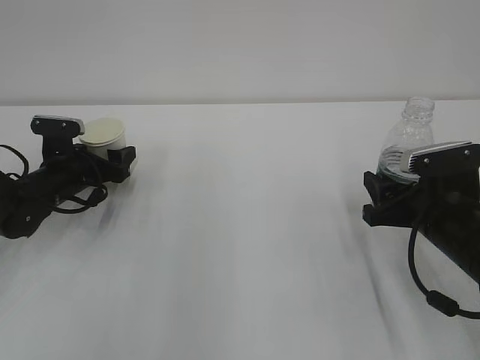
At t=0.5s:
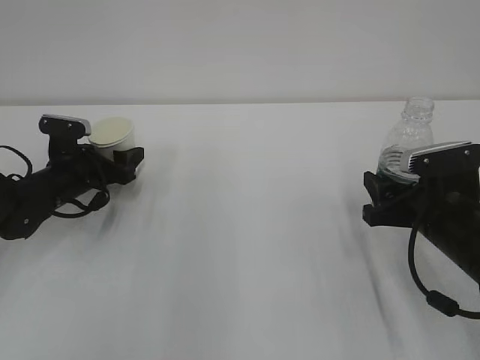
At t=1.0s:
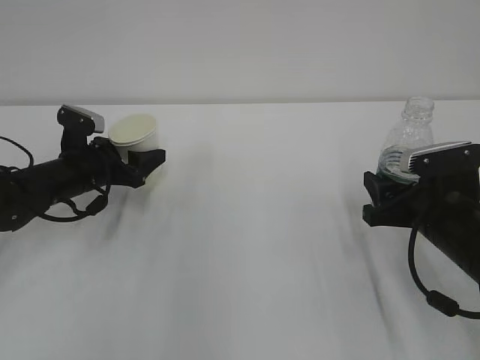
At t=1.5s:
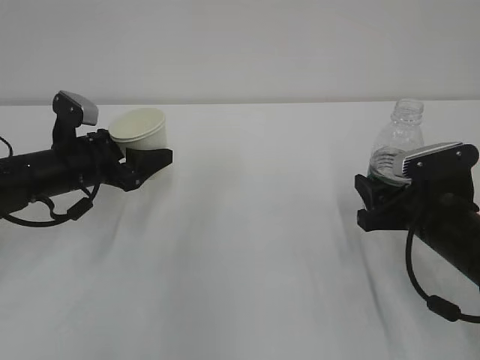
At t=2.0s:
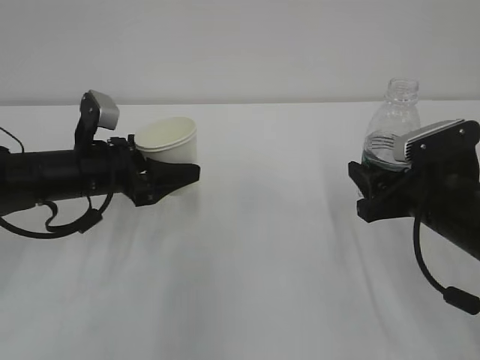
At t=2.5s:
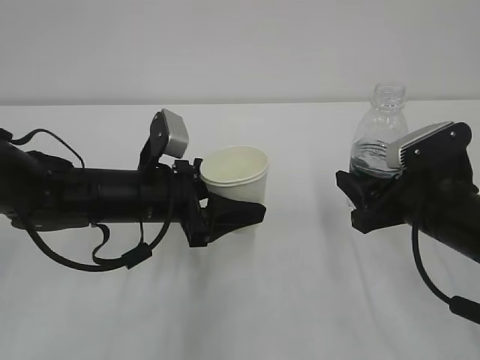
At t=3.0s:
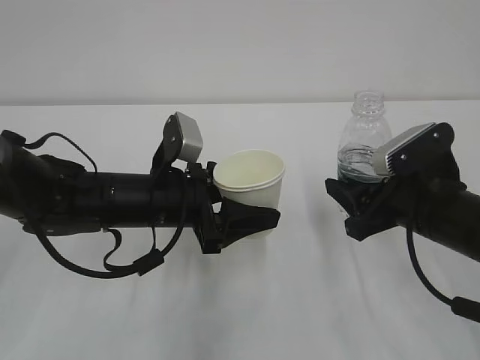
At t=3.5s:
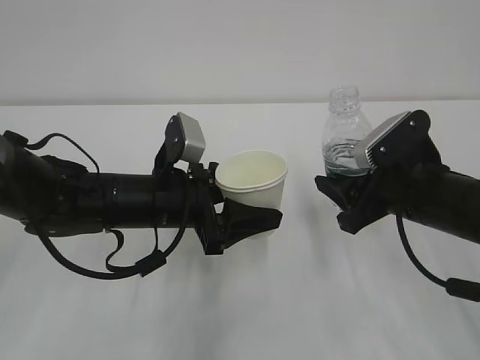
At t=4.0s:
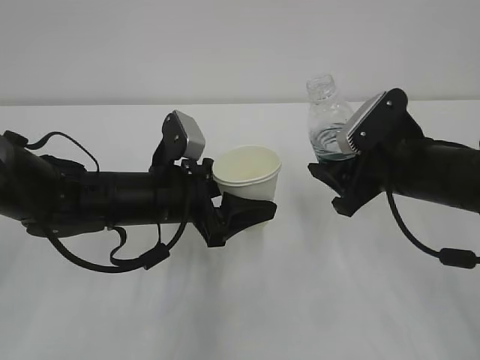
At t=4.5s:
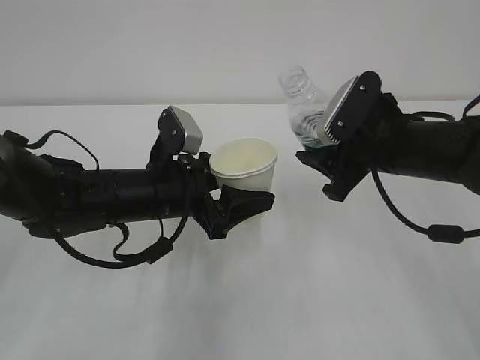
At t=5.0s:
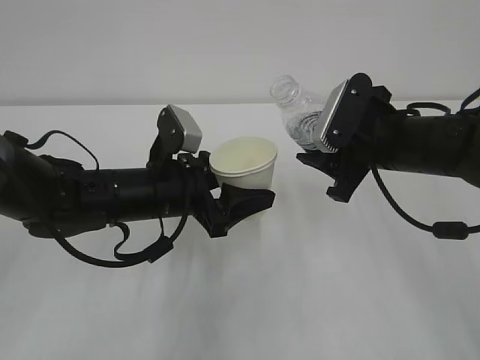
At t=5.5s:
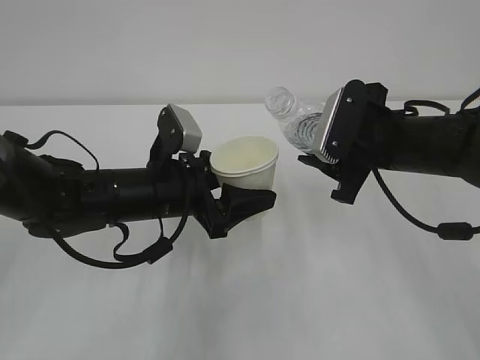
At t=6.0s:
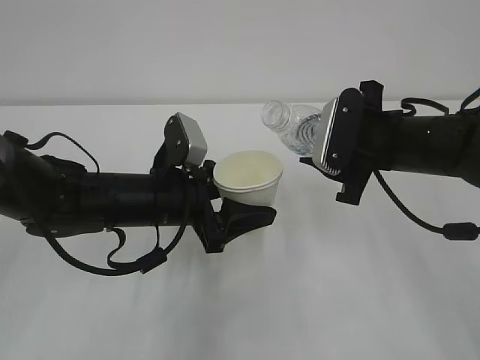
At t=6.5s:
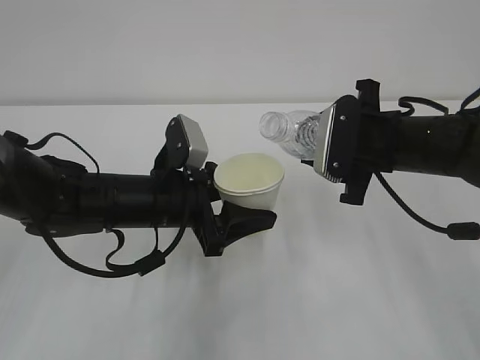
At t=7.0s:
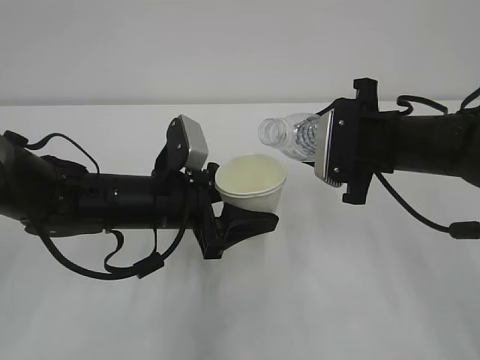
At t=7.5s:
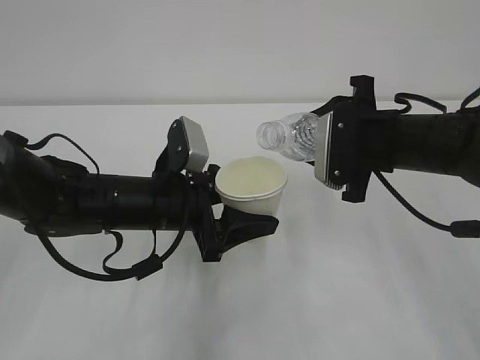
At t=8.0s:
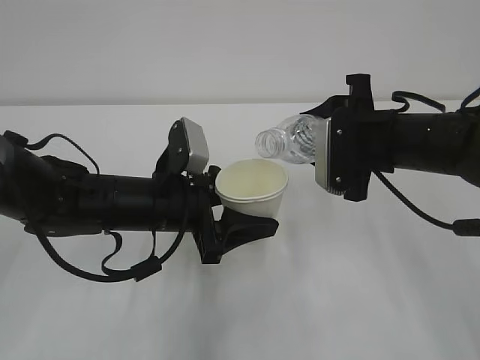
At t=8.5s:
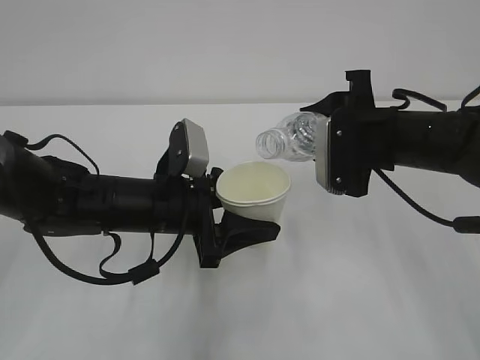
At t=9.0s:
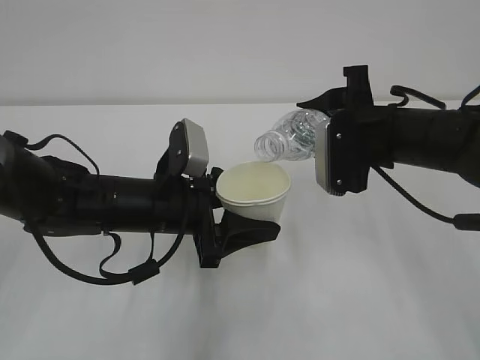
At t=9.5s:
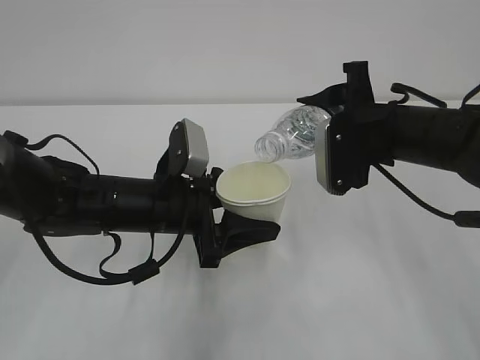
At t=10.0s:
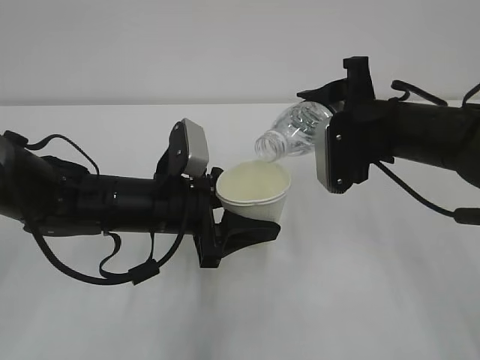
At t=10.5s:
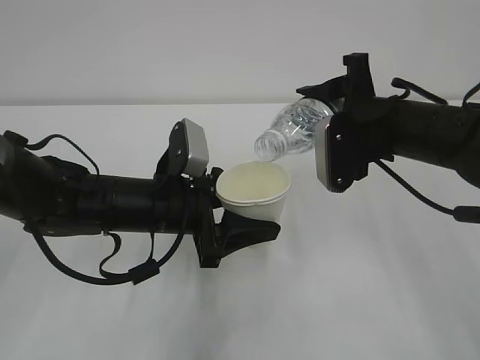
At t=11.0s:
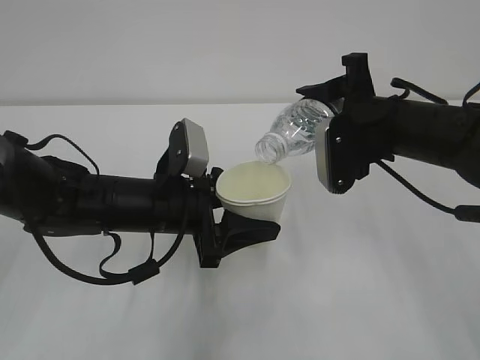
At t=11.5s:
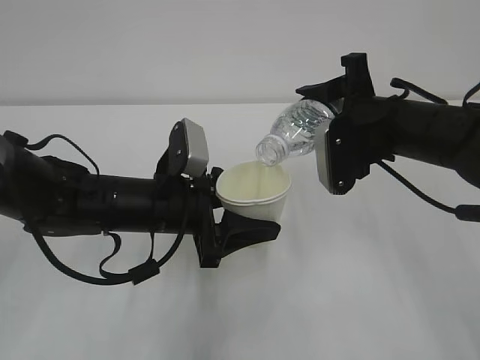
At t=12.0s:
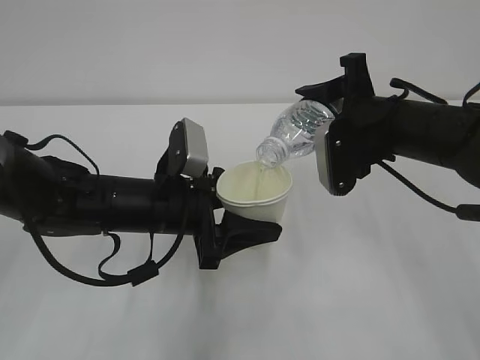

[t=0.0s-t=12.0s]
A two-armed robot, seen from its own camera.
t=0.0s to t=2.0s: The left gripper is displaced upward, backward and to the right by approximately 10 cm, and closes its fingers.
t=2.0s to t=4.0s: The left gripper shifts some 10 cm to the right, while the right gripper shifts by approximately 5 cm.
t=6.0s to t=8.0s: There are only small adjustments of the grippers.
t=8.0s to t=10.0s: The grippers make only small movements.
t=10.0s to t=12.0s: The grippers move only a little.

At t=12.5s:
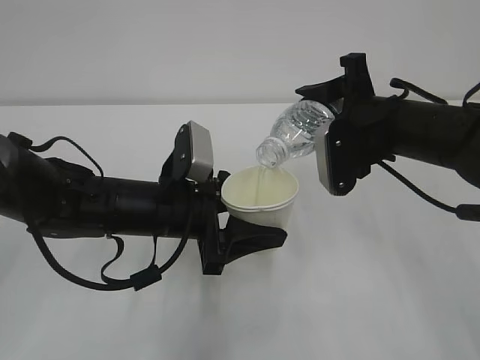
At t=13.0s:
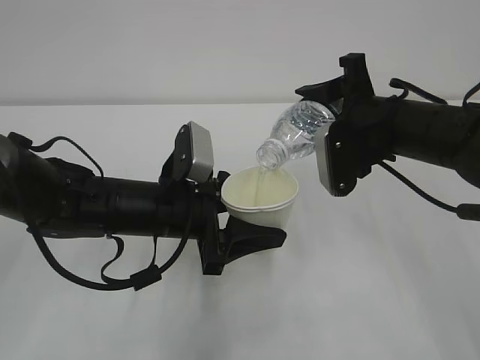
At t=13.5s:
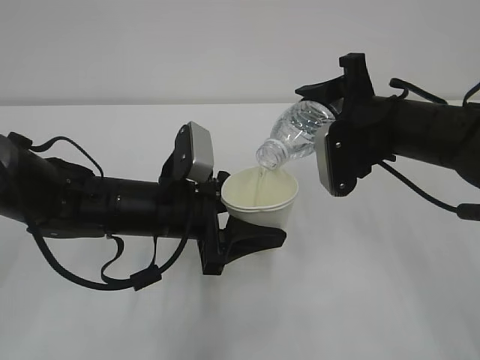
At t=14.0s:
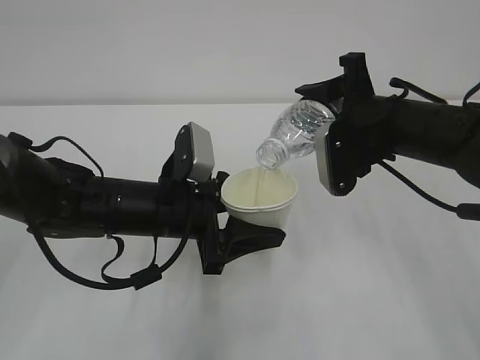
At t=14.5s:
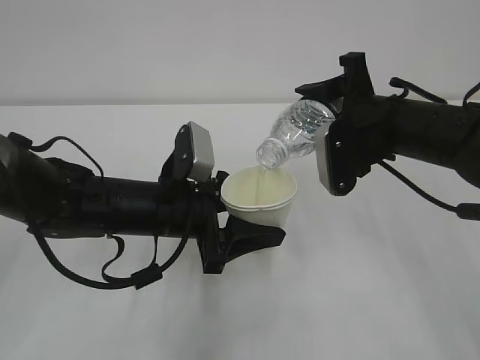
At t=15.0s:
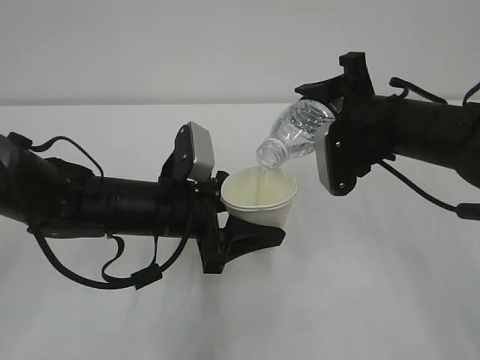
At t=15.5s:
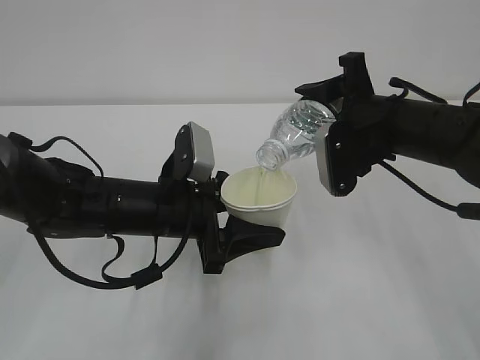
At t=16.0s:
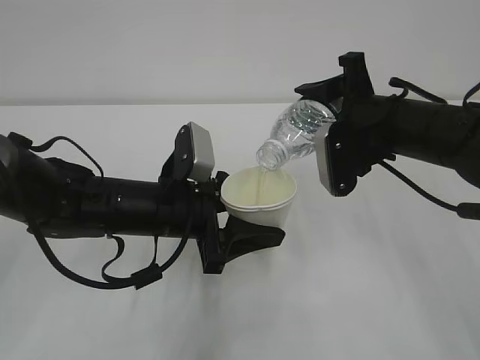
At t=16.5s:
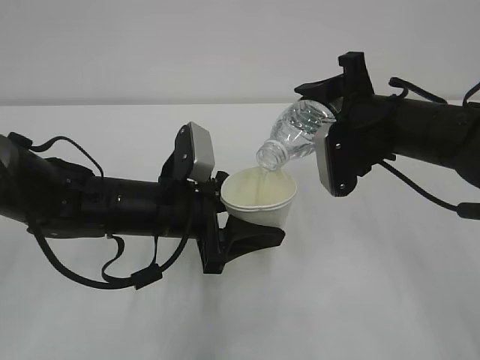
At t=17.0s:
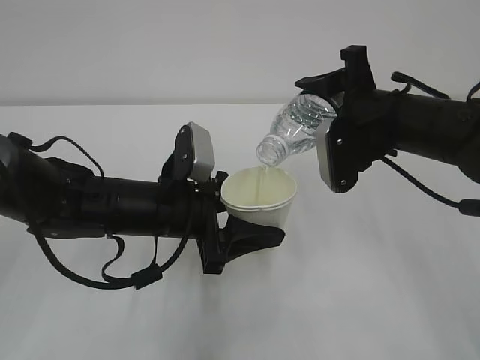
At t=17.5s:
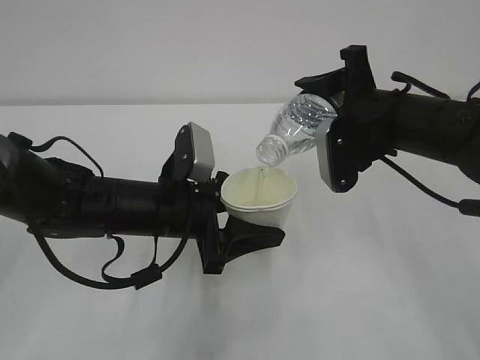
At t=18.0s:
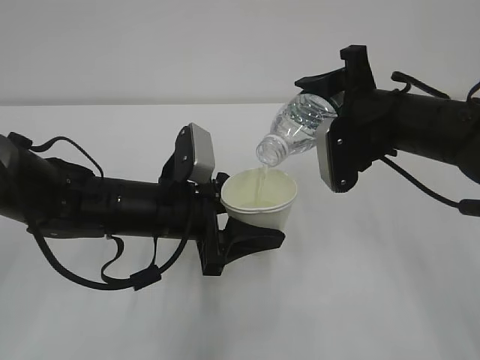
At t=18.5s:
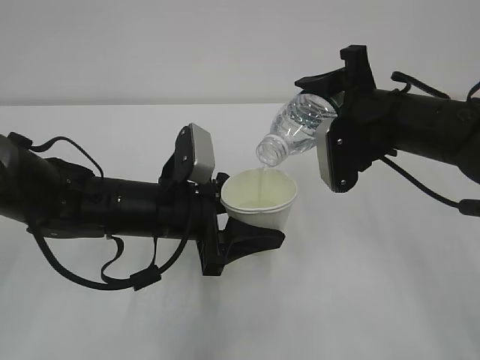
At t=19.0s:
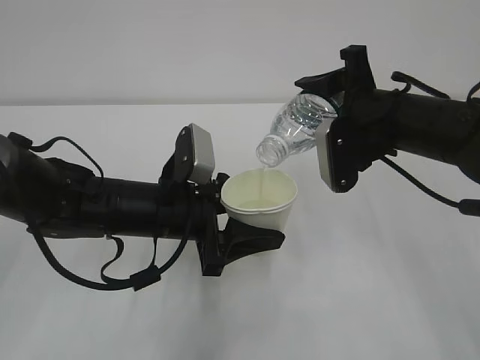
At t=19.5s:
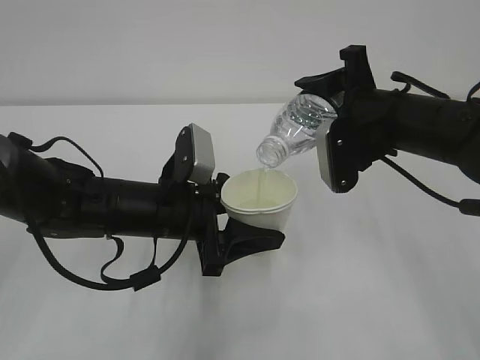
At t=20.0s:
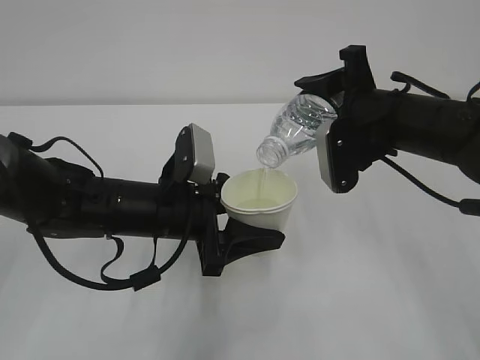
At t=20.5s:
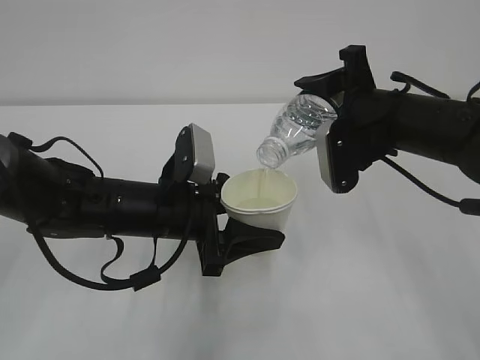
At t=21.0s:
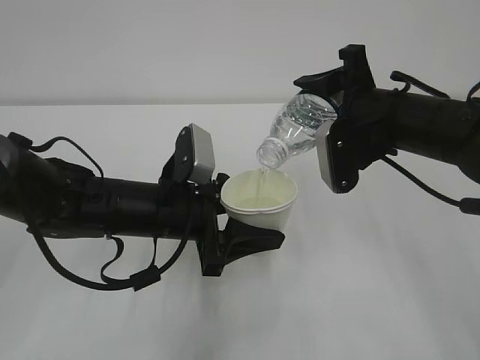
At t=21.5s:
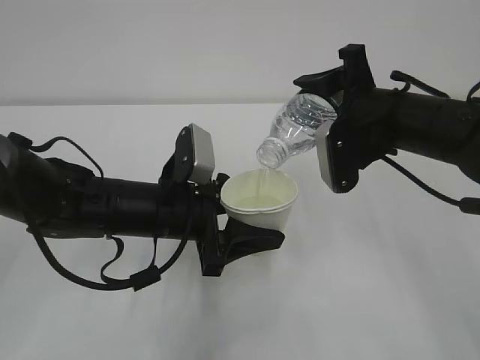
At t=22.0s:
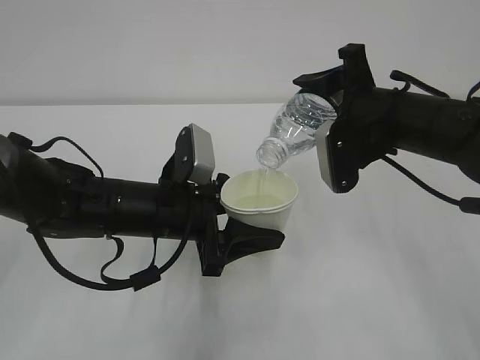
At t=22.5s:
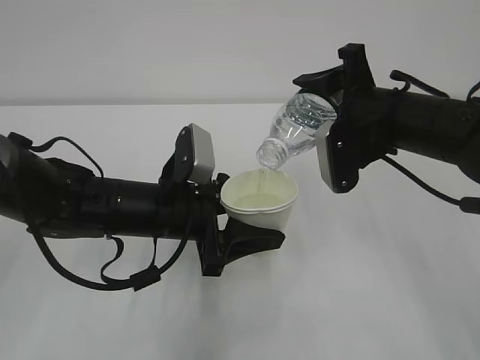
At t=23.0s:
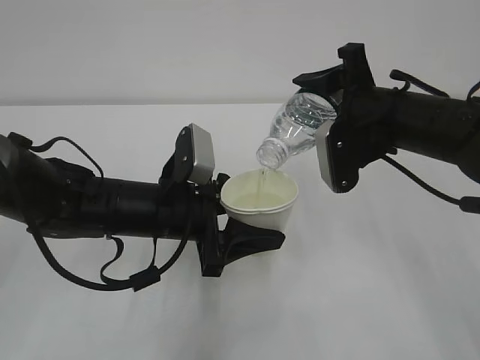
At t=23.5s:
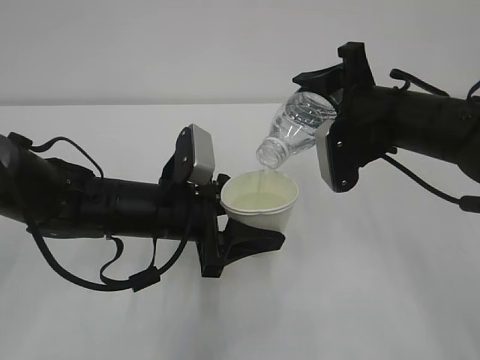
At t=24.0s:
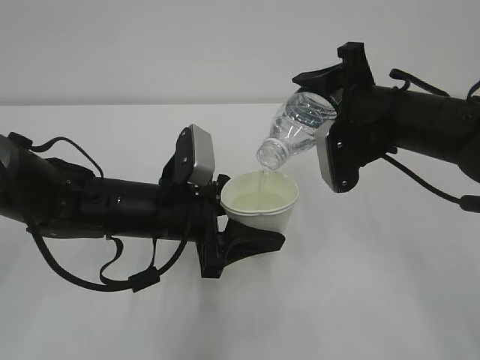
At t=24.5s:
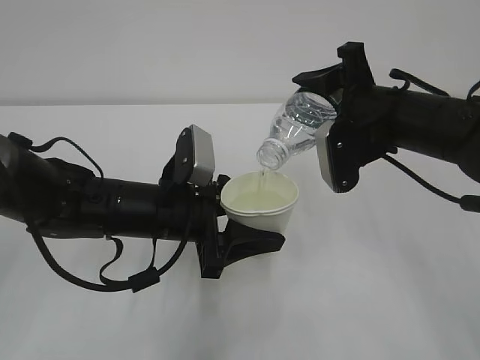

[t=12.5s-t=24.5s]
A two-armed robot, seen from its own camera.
t=12.5s to t=18.5s: Both grippers stay about where they are.
t=18.5s to t=24.5s: Both grippers stay about where they are.

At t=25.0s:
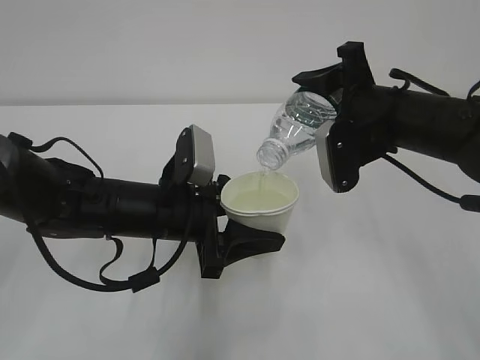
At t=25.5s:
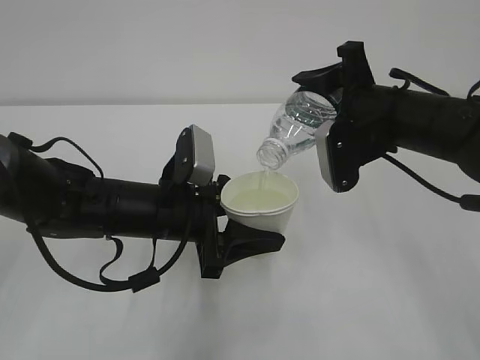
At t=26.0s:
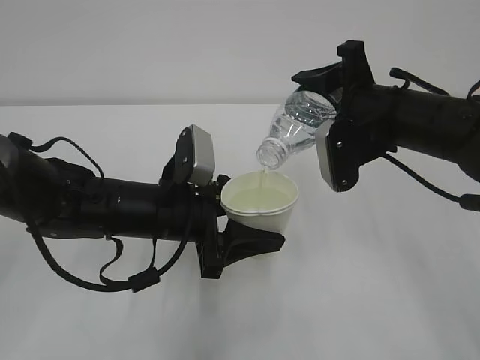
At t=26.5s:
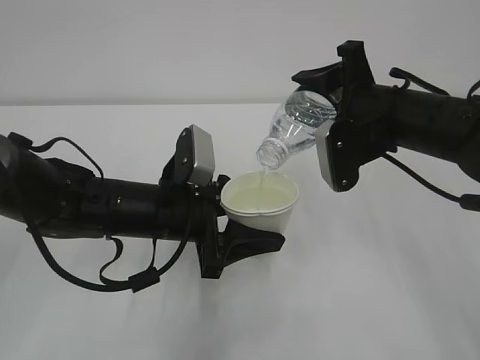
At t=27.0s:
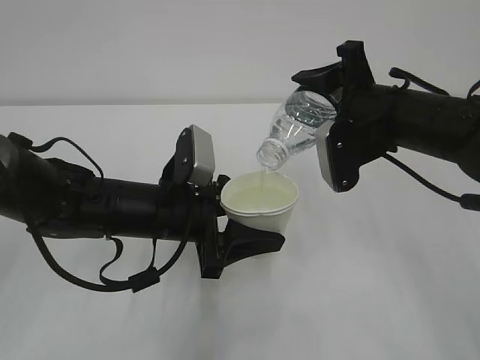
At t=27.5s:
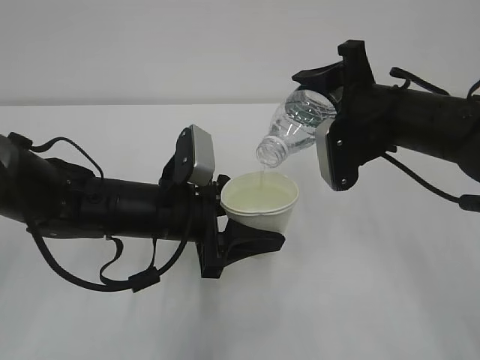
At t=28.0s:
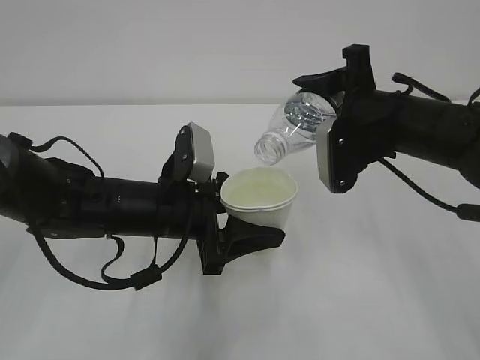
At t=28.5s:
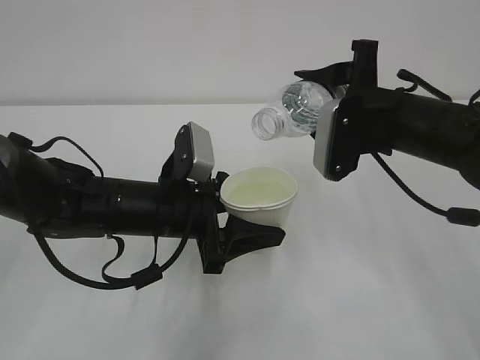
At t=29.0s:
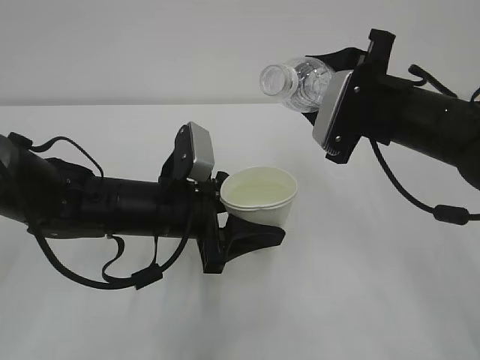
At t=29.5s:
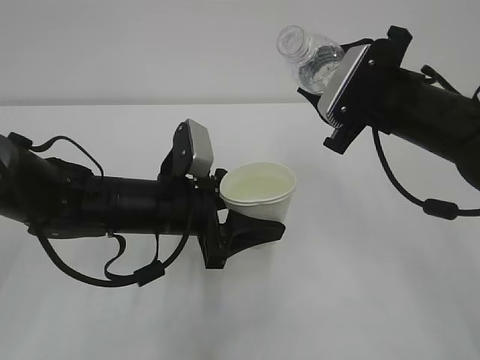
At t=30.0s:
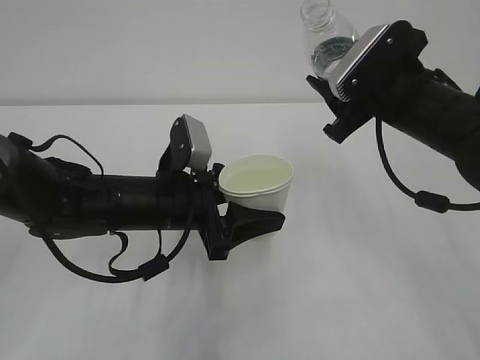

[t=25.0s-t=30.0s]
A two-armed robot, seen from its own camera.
t=25.0s to t=27.5s: Both grippers stay about where they are.
